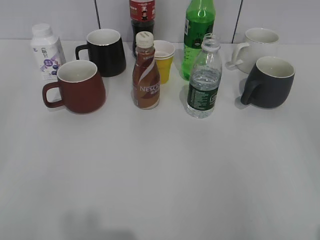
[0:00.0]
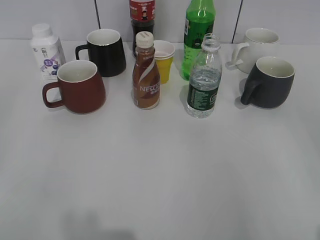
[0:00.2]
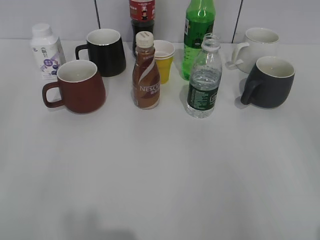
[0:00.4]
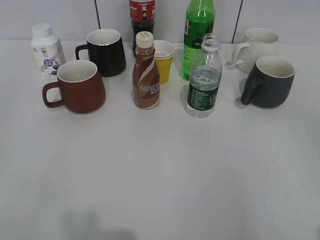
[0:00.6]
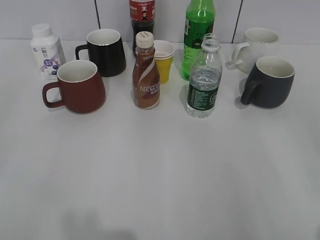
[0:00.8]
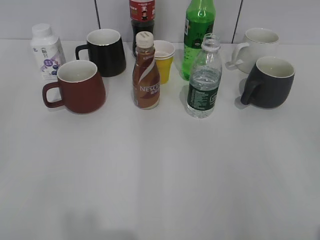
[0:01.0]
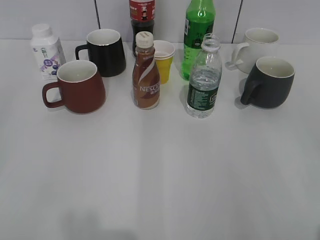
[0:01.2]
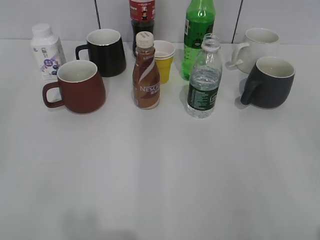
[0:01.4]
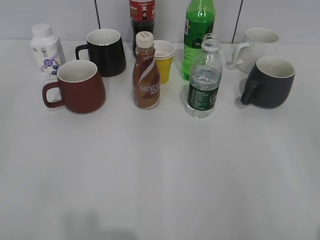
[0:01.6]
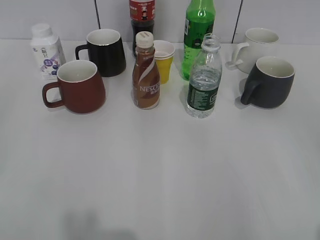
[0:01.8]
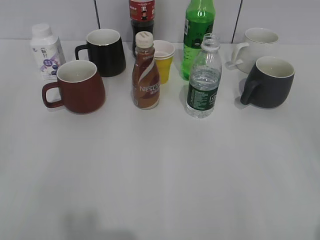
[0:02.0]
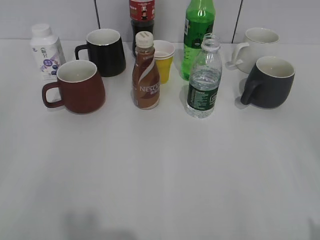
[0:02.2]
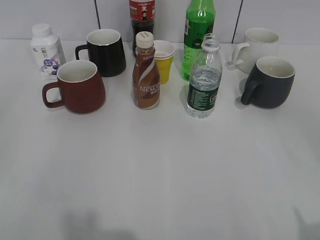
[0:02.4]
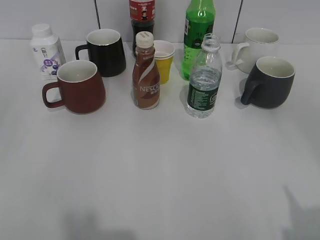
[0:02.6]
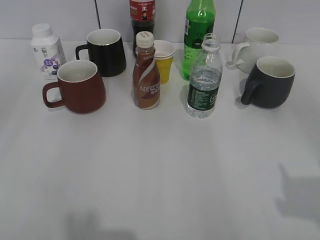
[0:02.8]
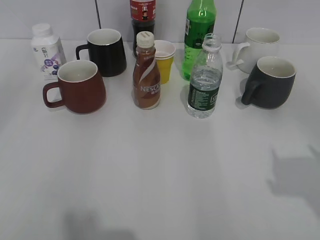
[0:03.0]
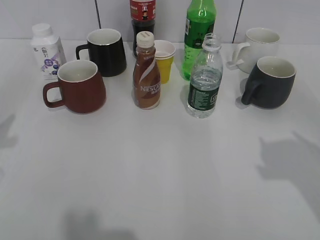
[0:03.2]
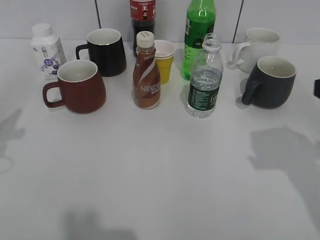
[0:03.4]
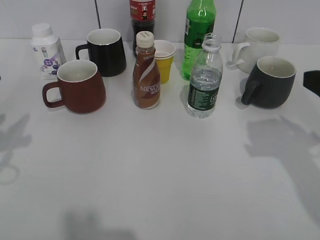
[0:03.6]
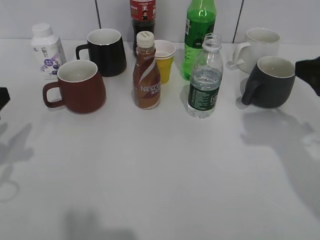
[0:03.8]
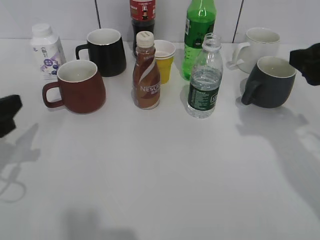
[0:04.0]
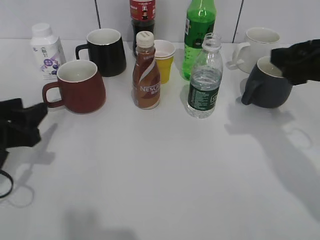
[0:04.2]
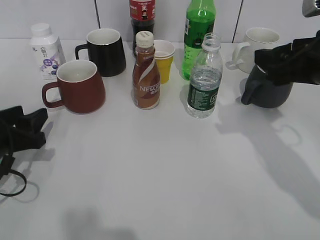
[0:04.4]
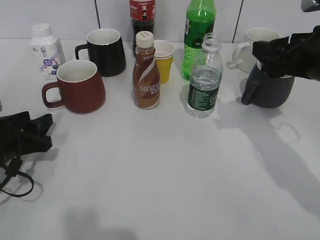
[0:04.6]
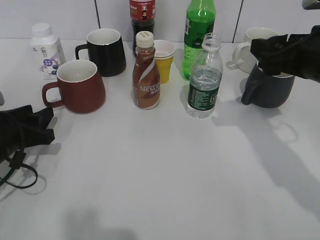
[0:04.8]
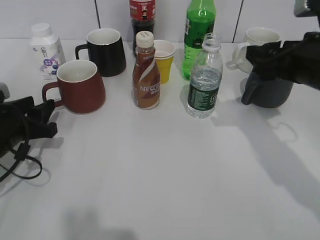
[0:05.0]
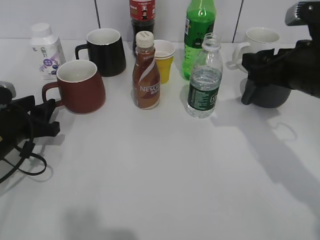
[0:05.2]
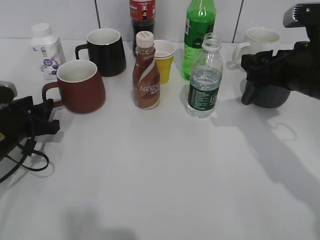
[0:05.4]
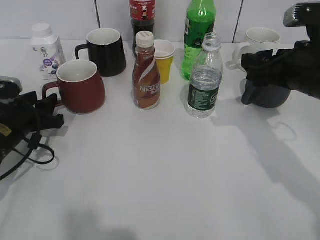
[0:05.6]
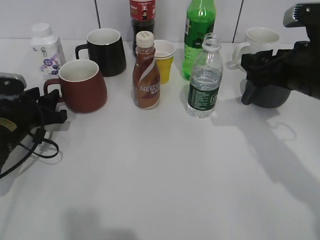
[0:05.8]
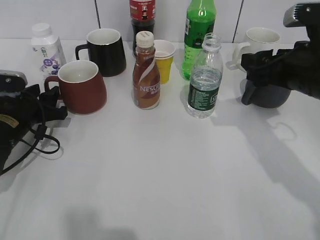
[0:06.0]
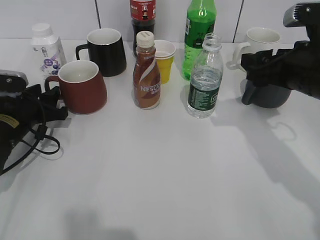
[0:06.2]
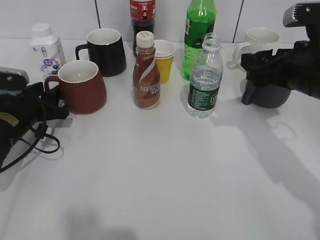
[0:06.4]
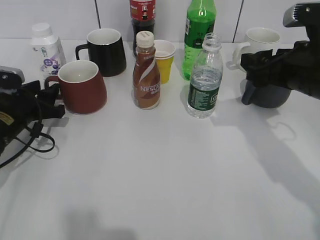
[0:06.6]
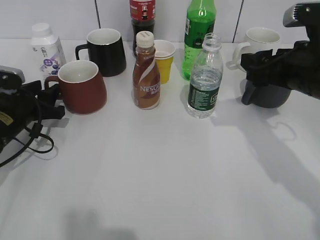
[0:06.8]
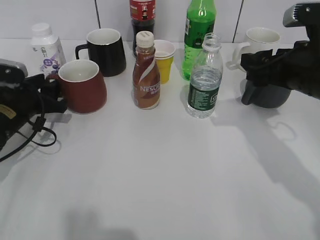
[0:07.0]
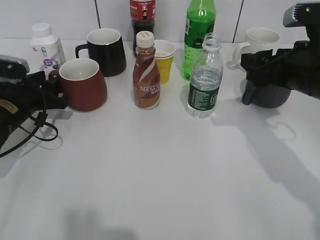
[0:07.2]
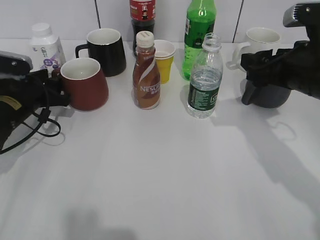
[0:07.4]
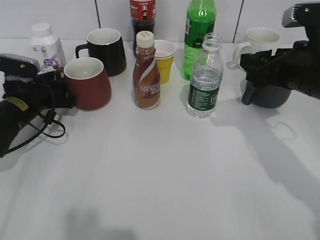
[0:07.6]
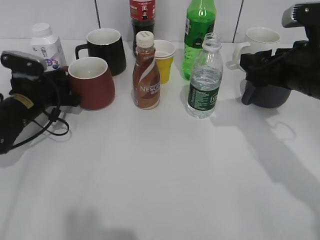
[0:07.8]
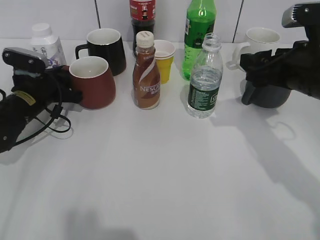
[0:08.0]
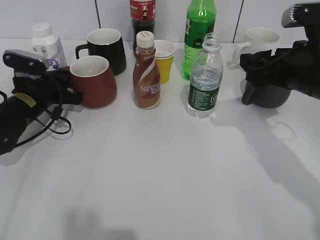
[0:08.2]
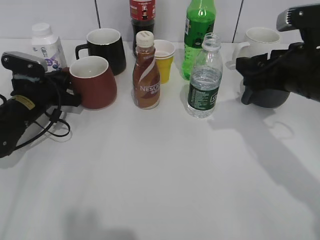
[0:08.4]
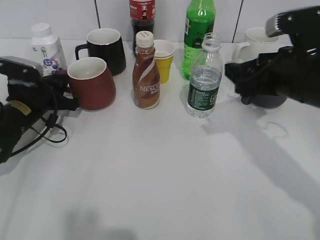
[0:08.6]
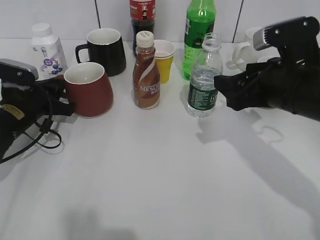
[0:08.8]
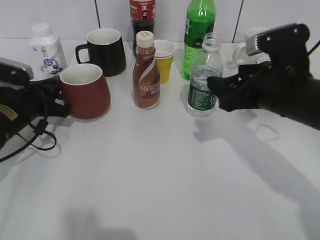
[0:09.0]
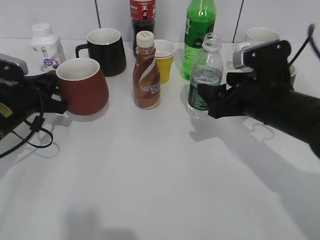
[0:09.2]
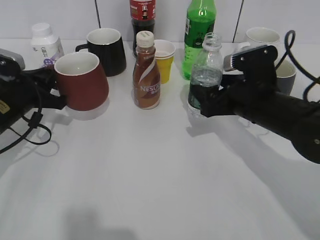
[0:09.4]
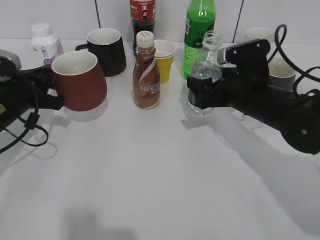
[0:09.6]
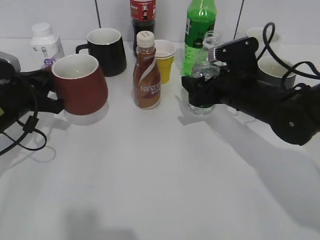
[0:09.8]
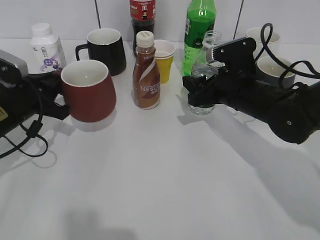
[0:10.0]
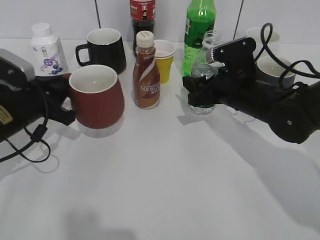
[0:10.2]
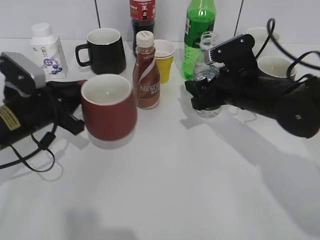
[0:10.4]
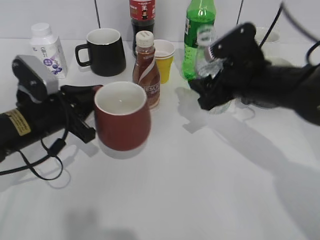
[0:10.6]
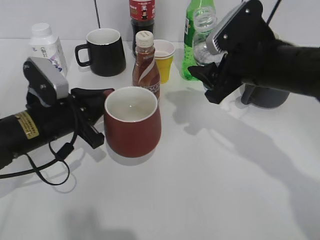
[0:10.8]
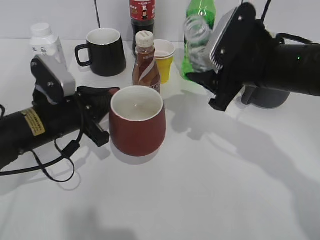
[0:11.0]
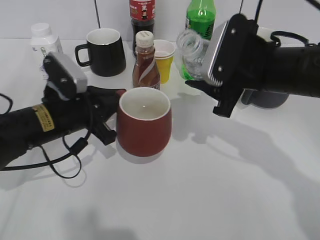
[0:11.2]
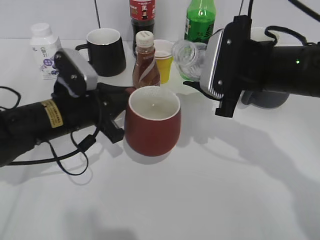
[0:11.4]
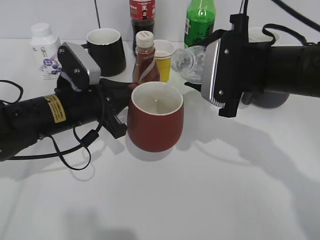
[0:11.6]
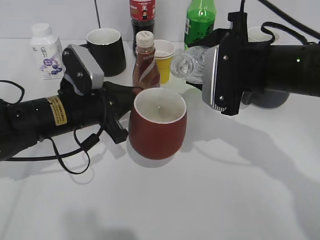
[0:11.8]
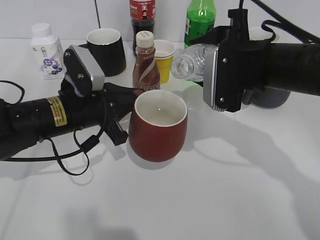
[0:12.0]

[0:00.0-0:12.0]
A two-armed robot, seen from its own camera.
Step, 0:02.2 to 0:08.2: Grasp the red cup with left gripper.
Step, 0:08.4 to 0:10.0: Grasp the bottle with water with right gripper.
0:01.6 to 0:03.0: The right gripper is displaced forward by about 10 cm.
0:03.0 to 0:04.4: The left gripper travels downward and forward by some 20 cm, while the right gripper moves forward and to the left, about 15 cm.
0:04.4 to 0:06.0: The left gripper shifts about 10 cm forward.
0:06.0 to 0:07.6: The grippers move only a little.
0:07.6 to 0:09.0: The left gripper closes.
0:09.0 to 0:10.4: The right gripper heads forward, covering about 5 cm, and closes up; the left gripper changes place by some 5 cm.
0:10.4 to 0:12.0: The left gripper travels to the right by some 10 cm; the right gripper heads upward, covering roughly 10 cm.

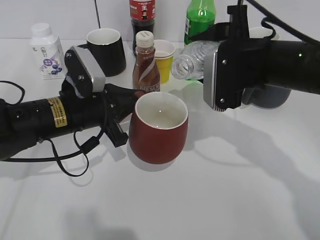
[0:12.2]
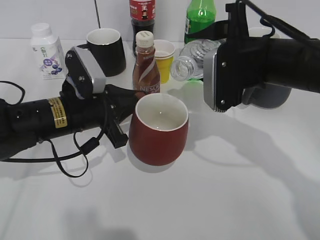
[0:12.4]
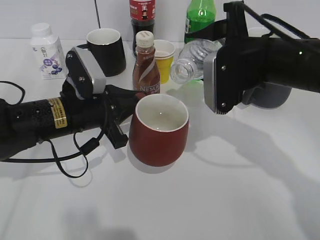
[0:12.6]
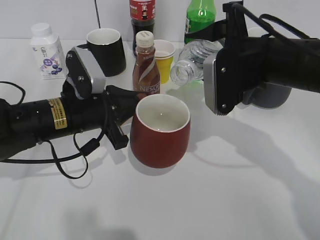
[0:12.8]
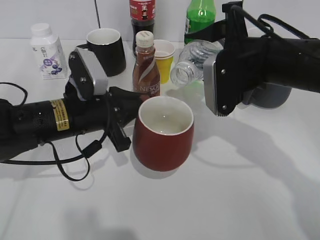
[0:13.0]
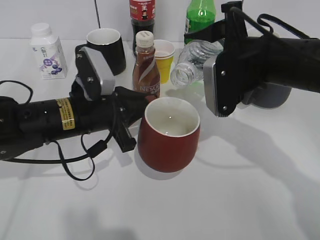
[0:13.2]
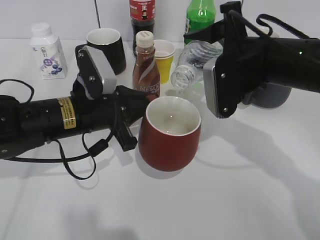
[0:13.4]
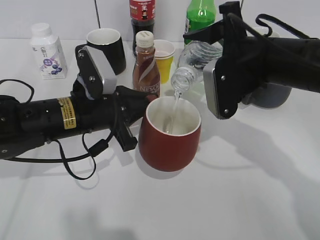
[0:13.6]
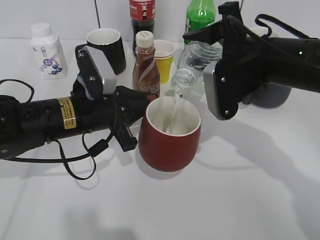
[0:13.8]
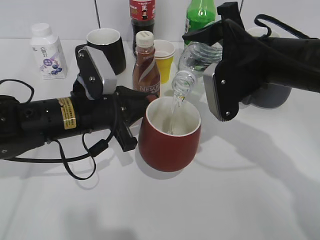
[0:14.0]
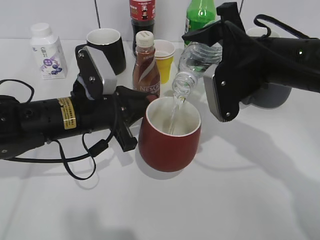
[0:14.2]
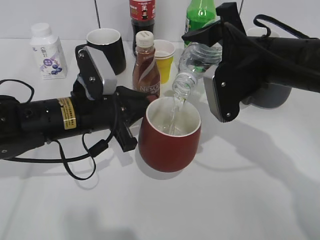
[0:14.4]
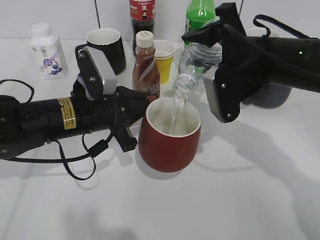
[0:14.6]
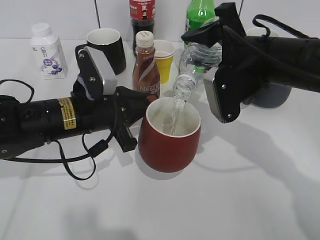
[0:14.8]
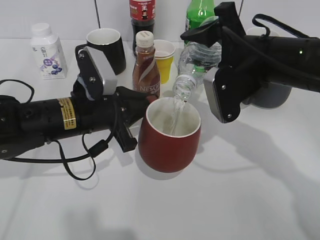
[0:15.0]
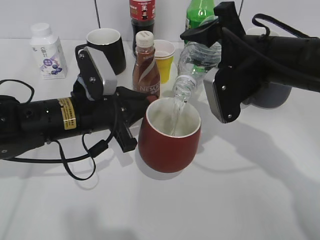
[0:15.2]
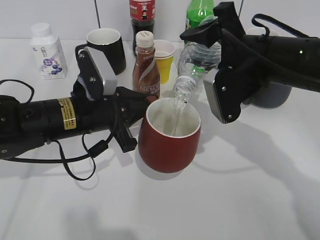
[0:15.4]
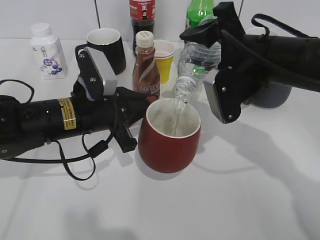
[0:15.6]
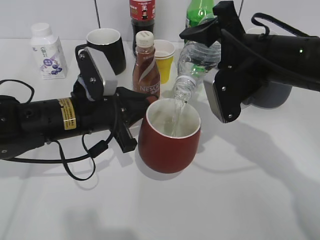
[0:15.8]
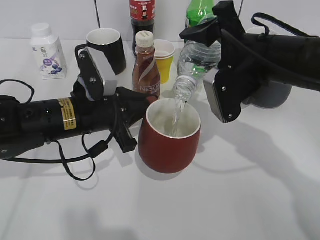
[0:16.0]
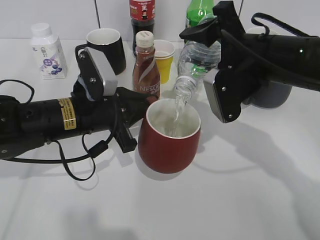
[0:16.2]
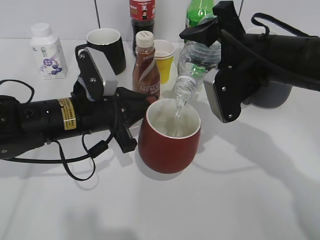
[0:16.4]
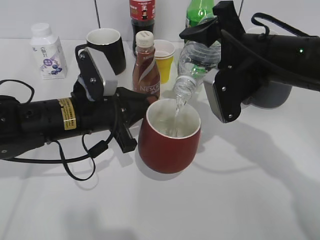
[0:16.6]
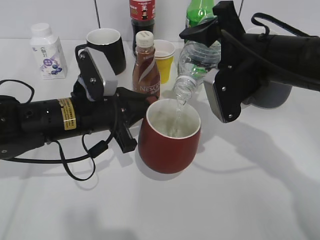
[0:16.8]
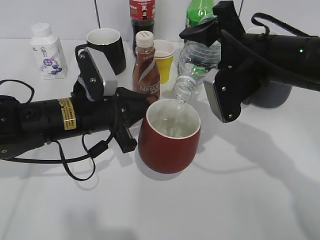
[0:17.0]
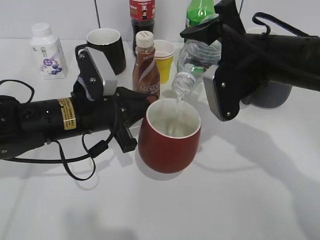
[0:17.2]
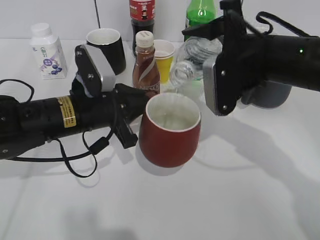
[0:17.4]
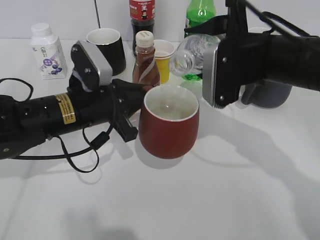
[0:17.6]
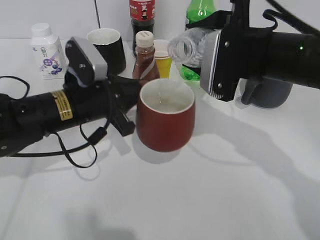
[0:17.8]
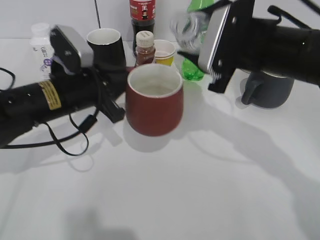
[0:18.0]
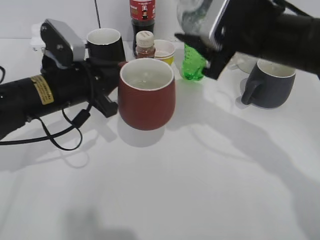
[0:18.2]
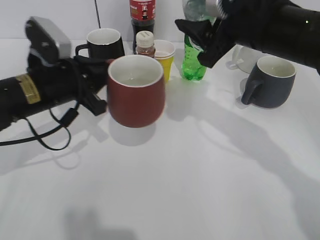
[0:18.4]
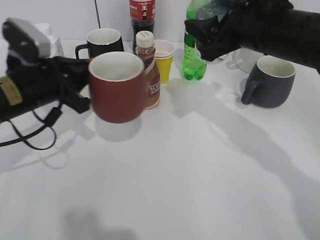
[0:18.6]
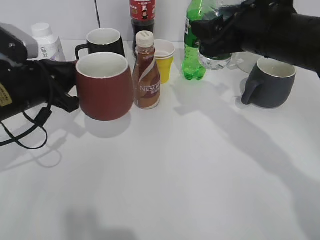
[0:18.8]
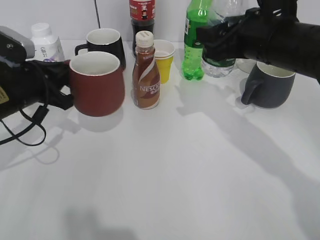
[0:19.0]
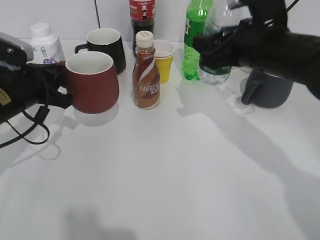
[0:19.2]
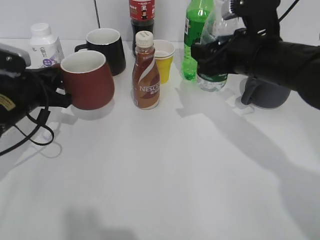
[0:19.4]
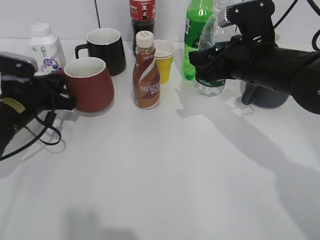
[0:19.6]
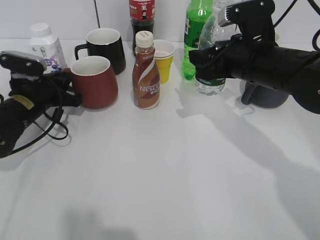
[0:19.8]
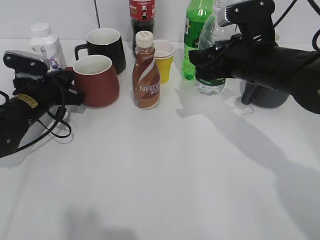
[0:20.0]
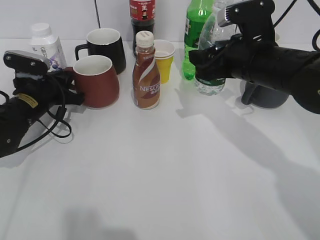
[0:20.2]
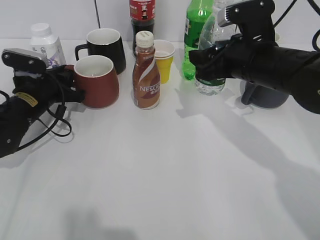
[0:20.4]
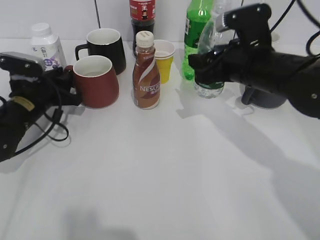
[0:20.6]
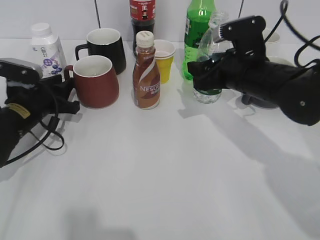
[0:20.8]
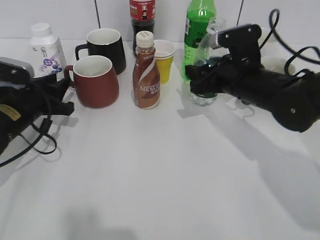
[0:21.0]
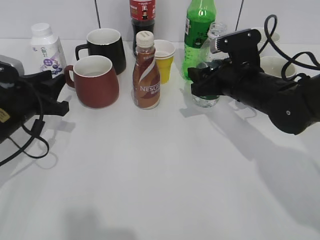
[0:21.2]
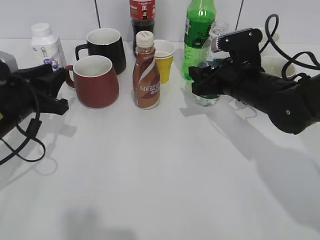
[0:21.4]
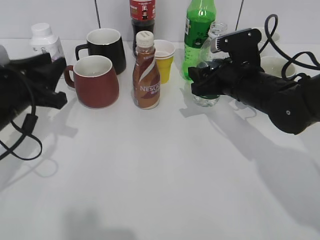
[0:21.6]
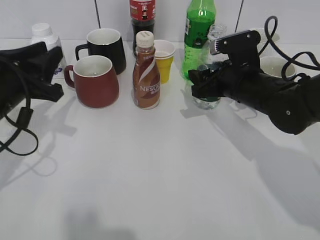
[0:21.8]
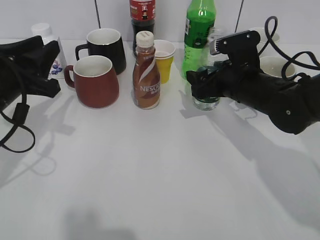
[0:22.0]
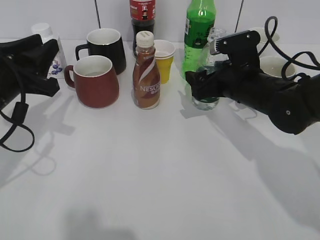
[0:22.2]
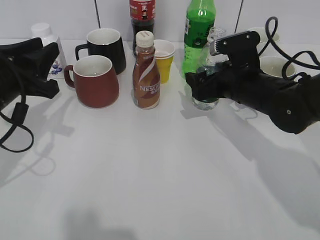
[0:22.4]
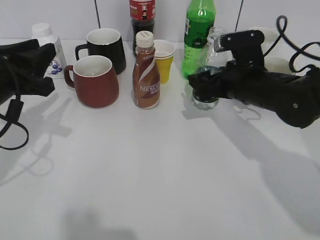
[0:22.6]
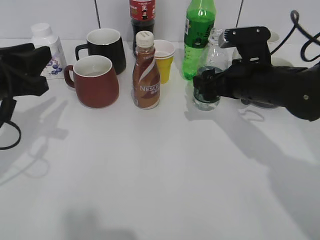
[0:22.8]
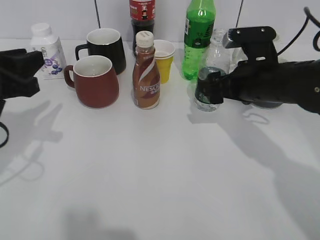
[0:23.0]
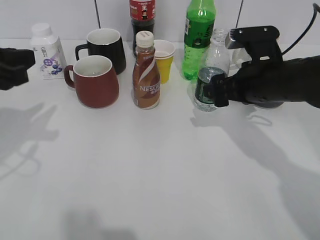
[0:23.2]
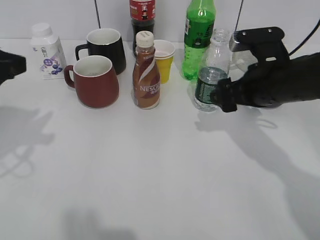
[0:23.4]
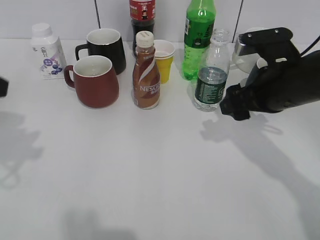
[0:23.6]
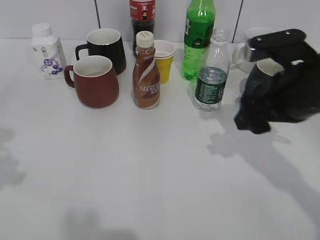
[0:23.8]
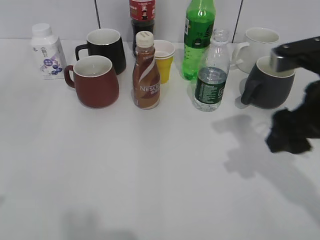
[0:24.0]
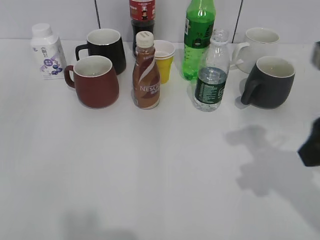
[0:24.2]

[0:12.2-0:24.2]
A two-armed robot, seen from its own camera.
Step, 0:12.2 to 0:17.4: Pour the water from bottle to cup with right gripper.
Step, 0:17.6 to 0:20.6: Place the red cup on the table with left gripper.
Step, 0:20.8 to 0:22.8: Place the water bottle on the table with right gripper.
0:12.2 to 0:13.8: The grippers move only a little.
0:13.8 to 0:15.2: The grippers make only small movements.
0:15.2 to 0:16.6: Both grippers stay about where they are.
0:18.2 to 0:19.8: The right gripper goes some 5 cm downward; the left gripper travels to the left, downward and forward by approximately 10 cm.
0:19.8 to 0:21.2: The right gripper travels downward by roughly 5 cm. Meanwhile the left gripper moves backward, roughly 5 cm, and opens.
0:21.2 to 0:22.6: The right gripper opens up. The left gripper moves upward, approximately 10 cm.
0:22.6 to 0:24.2: The left gripper travels backward and upward by approximately 20 cm. The right gripper shifts approximately 20 cm backward, upward and to the right, and closes.
